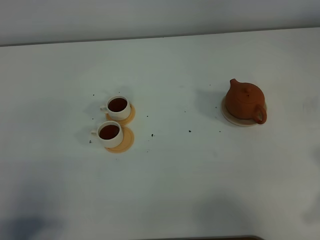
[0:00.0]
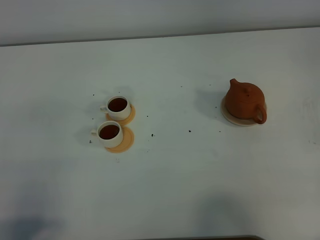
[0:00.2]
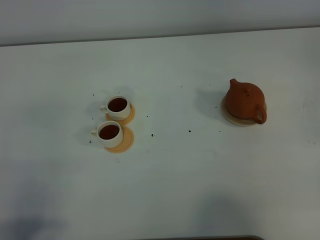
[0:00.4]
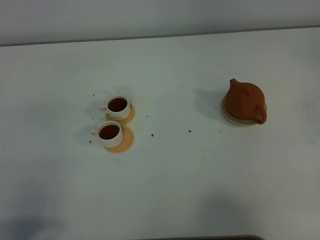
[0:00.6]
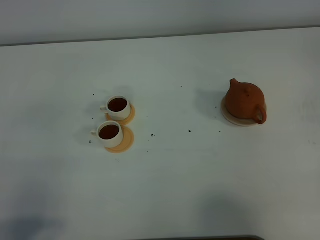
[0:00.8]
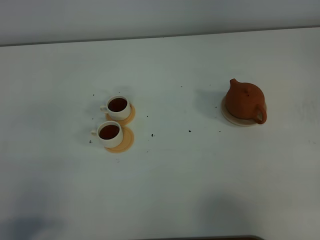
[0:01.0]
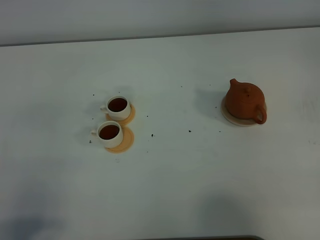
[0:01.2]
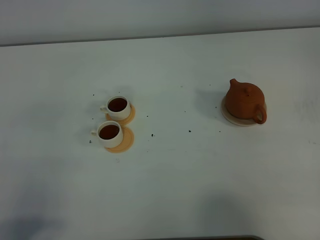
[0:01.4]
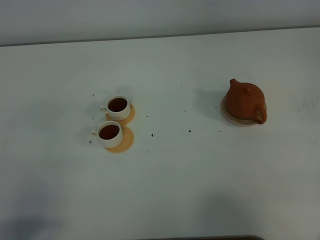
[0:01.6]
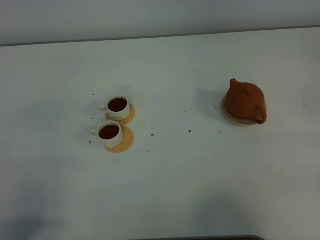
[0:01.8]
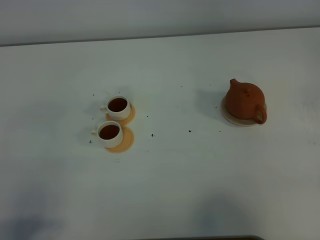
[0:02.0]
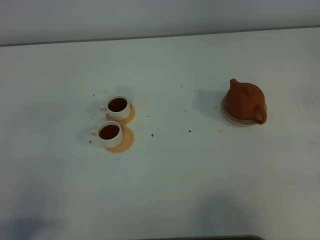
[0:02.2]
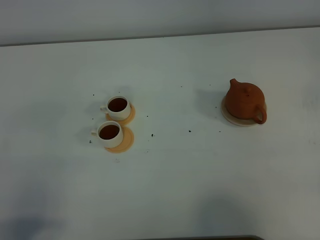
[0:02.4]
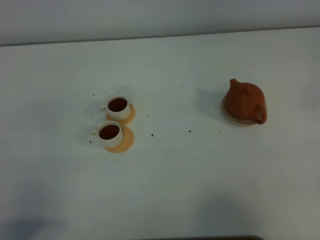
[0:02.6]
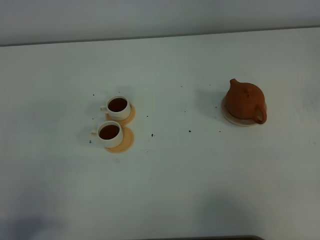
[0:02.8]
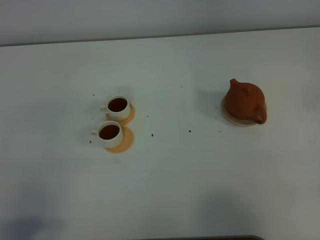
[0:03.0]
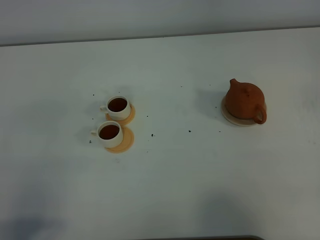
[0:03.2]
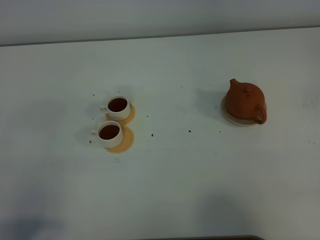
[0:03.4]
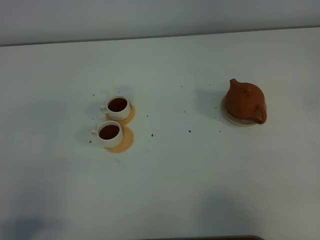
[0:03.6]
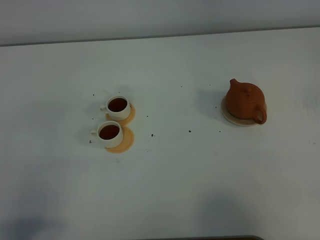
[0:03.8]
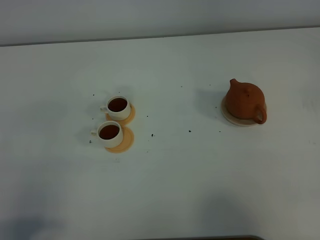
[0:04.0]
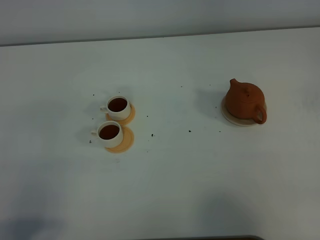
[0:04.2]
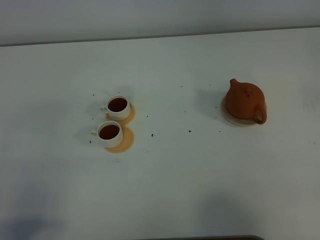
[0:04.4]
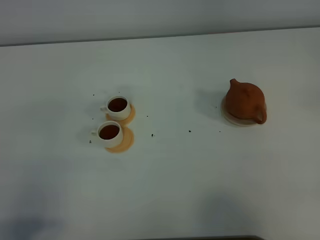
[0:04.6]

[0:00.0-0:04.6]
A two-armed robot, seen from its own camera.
Task of the whole recording: grasp the brown teapot and pour the tea into the two white teacups one by one, put the brown teapot back in its original place.
0:03.0 to 0:04.6: Neither gripper changes place.

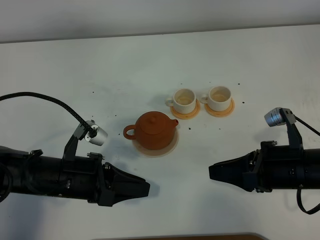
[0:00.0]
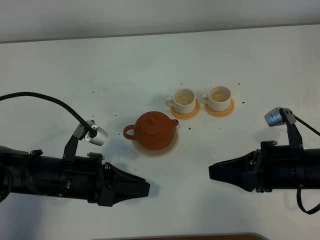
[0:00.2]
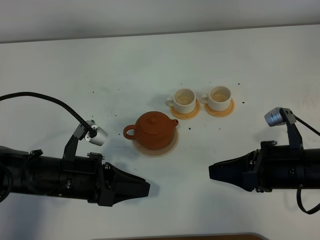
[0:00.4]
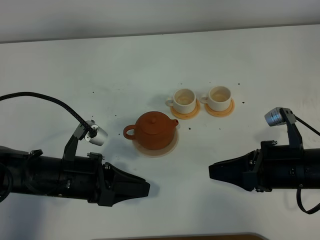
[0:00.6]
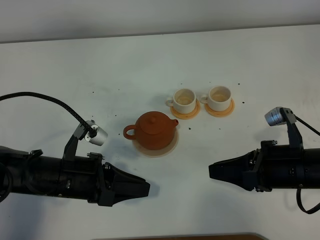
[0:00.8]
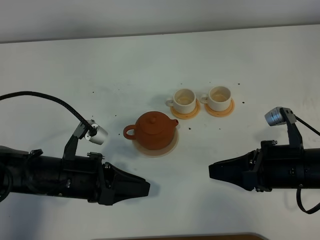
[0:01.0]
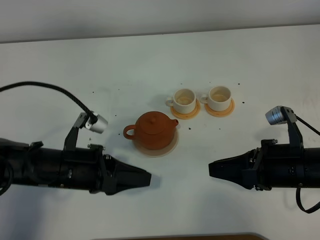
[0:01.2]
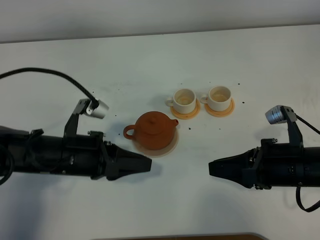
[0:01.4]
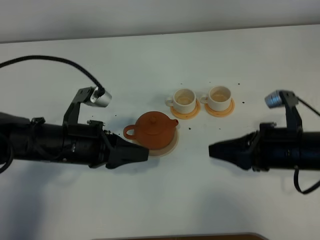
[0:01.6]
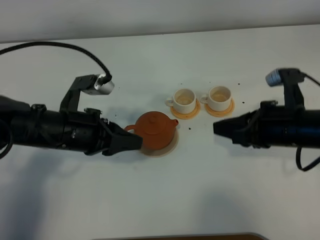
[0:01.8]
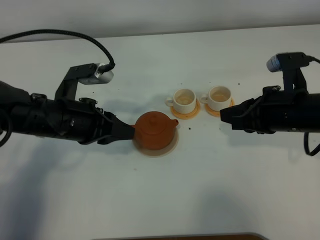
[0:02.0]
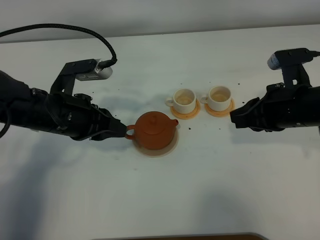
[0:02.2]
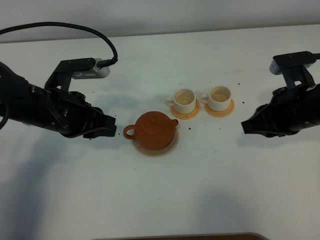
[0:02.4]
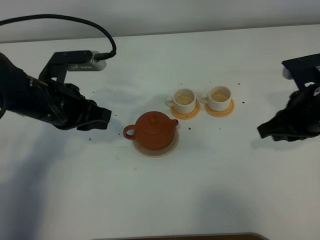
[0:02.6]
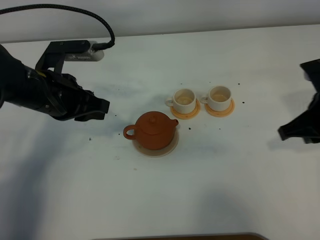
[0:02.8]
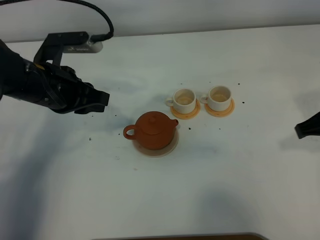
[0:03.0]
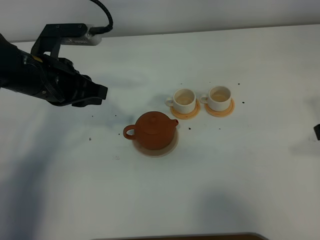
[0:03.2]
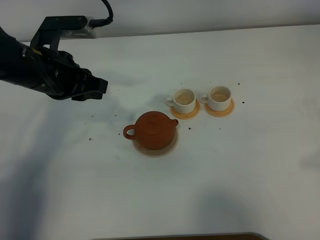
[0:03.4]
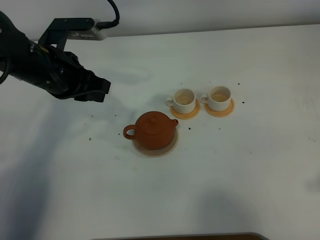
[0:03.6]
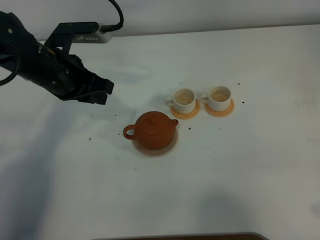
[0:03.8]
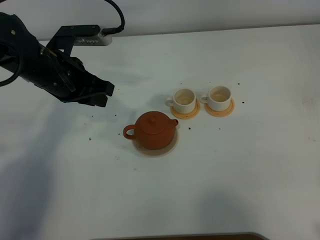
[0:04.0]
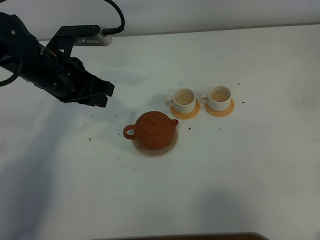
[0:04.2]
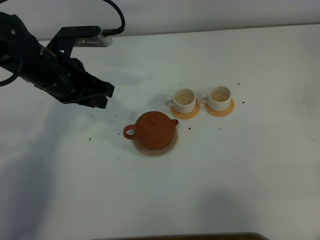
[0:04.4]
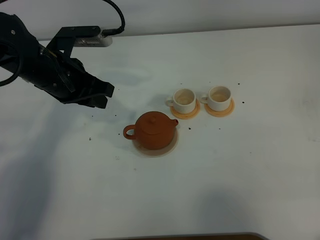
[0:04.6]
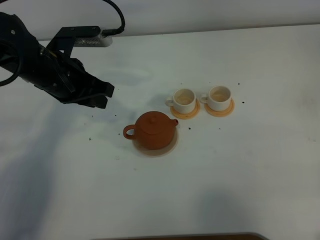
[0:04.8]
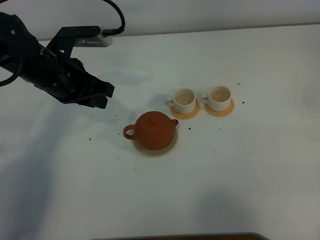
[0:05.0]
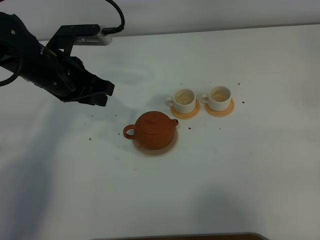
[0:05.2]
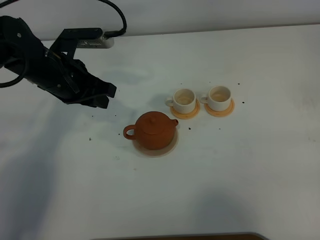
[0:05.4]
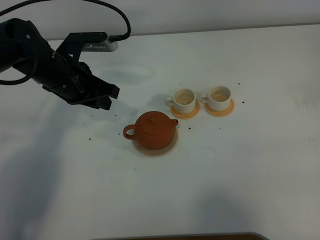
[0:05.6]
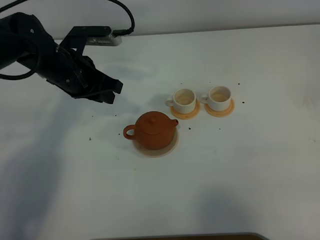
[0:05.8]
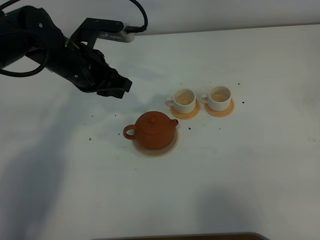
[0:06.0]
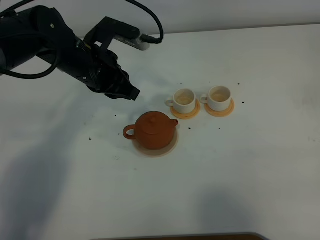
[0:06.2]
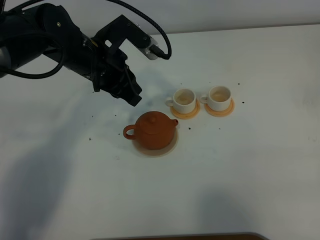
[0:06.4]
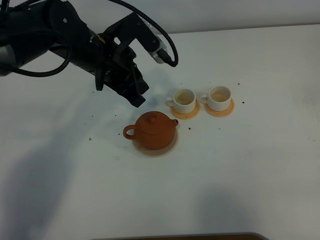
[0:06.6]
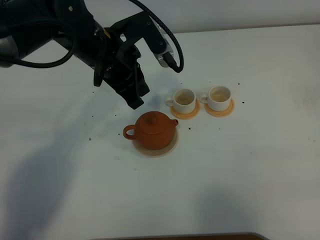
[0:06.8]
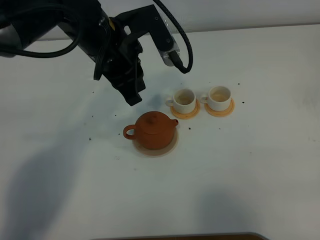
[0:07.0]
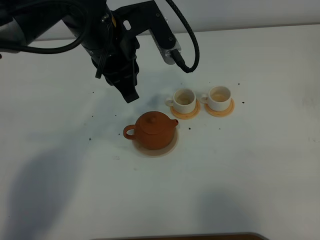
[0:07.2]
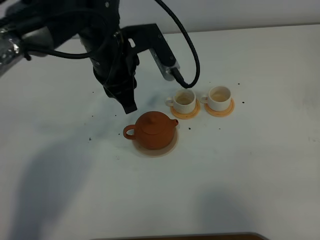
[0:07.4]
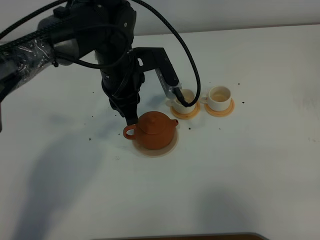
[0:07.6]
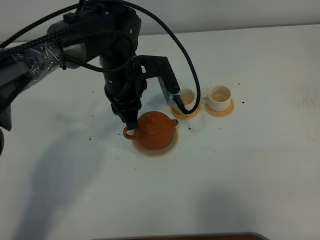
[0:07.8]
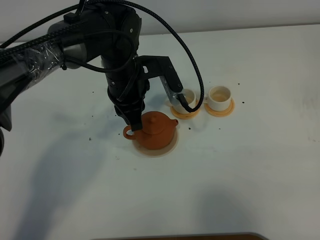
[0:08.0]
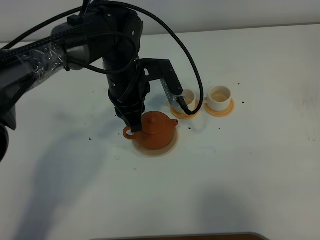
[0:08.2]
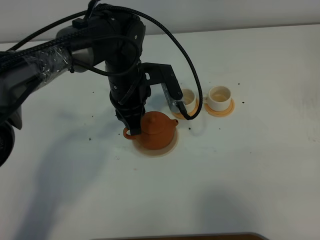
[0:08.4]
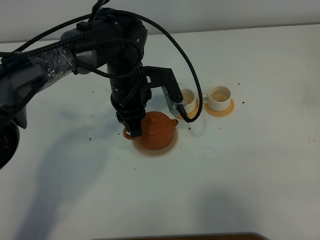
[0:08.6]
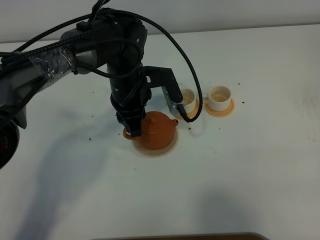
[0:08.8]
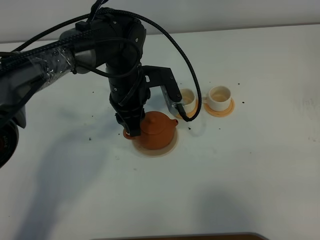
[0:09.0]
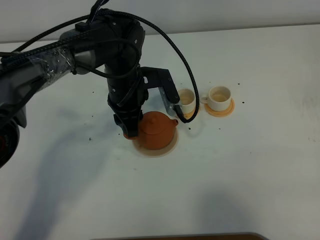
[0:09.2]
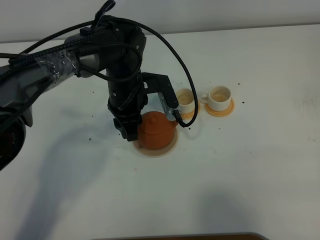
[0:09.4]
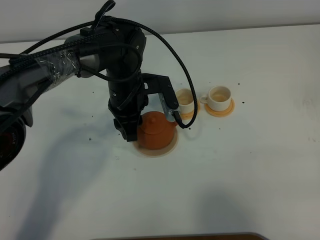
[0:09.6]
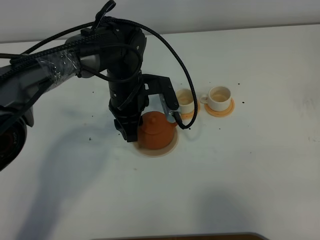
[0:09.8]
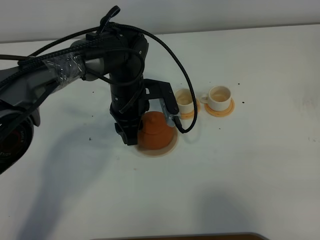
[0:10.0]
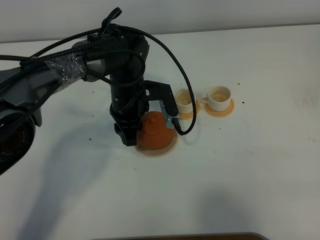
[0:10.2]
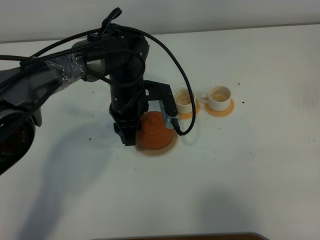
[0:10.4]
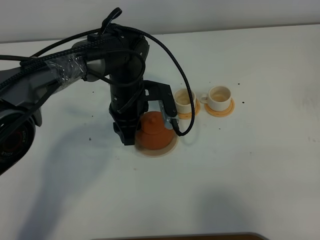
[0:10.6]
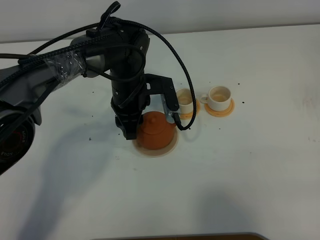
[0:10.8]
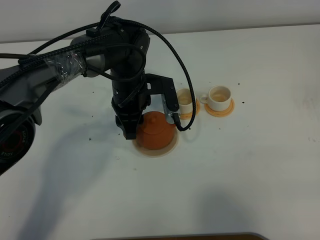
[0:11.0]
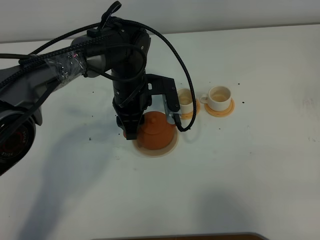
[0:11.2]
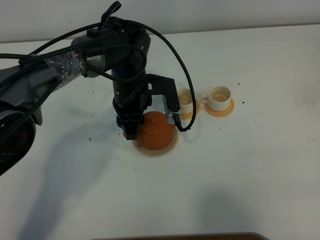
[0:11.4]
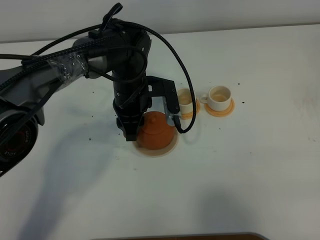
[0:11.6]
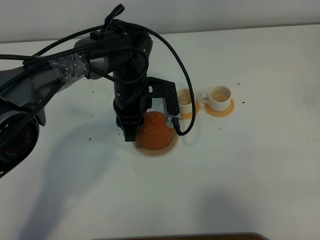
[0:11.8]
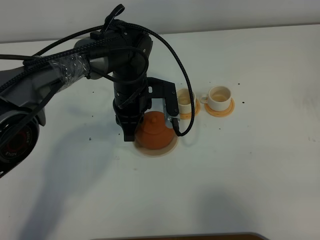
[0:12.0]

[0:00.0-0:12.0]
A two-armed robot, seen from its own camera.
Task of the whole recording: grasp the brown teapot and pour the tea into the two white teacups one by one, put the brown teapot back in its original place.
0:00.0 to 0:01.6: The left gripper changes place by some 5 cm.
0:01.6 to 0:03.0: The left gripper travels forward and upward by roughly 10 cm. The right gripper travels upward and to the right by approximately 10 cm.
0:03.0 to 0:04.4: The right gripper is displaced backward by roughly 20 cm.
0:06.0 to 0:07.6: The left gripper moves to the right, about 10 cm, and moves roughly 5 cm upward and comes back.
0:07.6 to 0:09.0: The left gripper opens up.
0:09.0 to 0:10.4: The grippers stay close to where they were, moving slightly.
0:10.4 to 0:12.0: The left gripper closes its fingers.

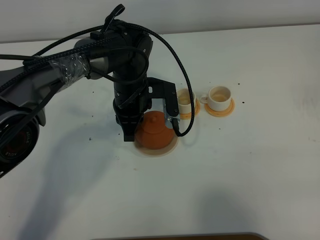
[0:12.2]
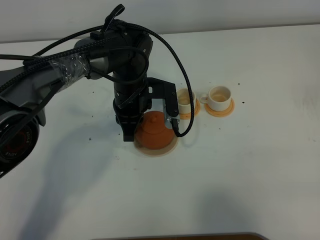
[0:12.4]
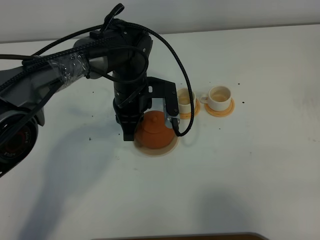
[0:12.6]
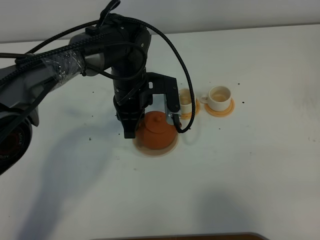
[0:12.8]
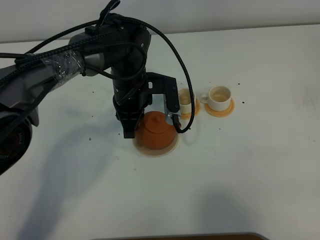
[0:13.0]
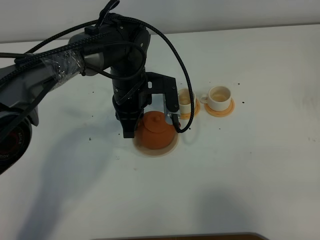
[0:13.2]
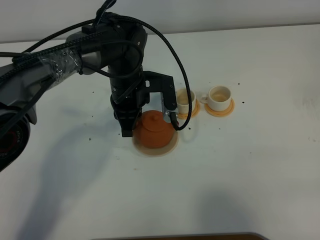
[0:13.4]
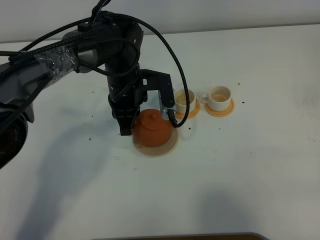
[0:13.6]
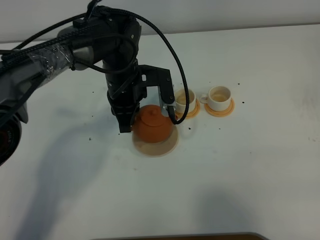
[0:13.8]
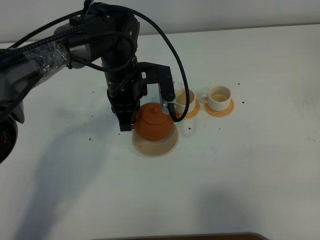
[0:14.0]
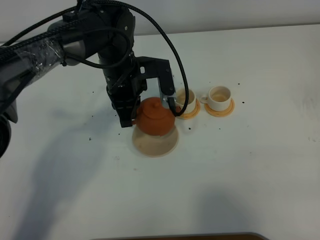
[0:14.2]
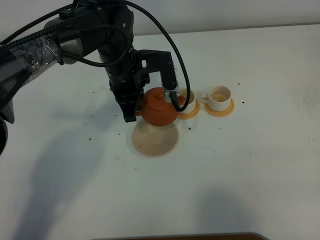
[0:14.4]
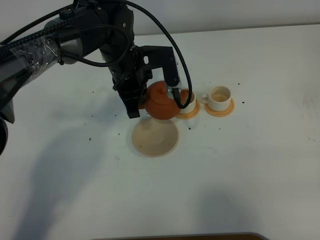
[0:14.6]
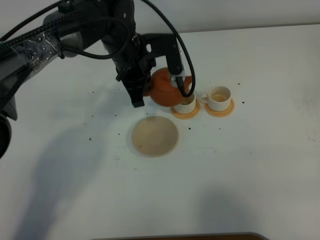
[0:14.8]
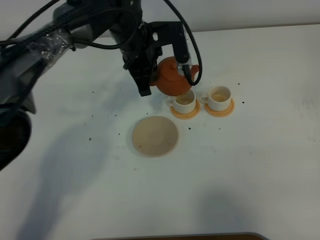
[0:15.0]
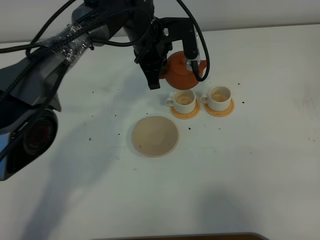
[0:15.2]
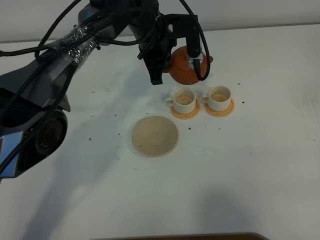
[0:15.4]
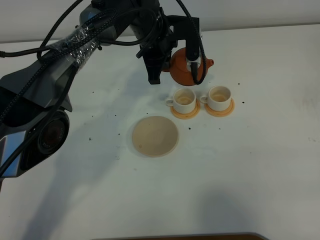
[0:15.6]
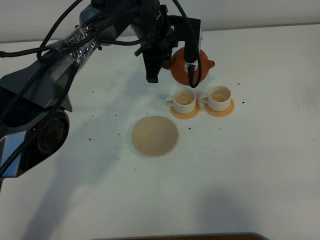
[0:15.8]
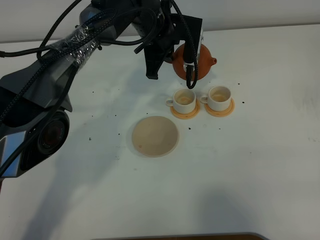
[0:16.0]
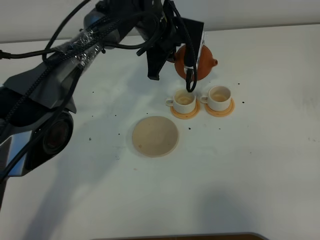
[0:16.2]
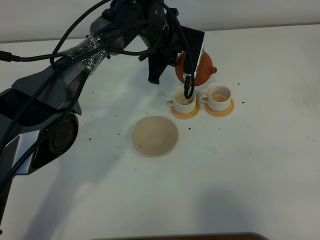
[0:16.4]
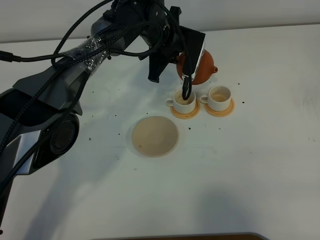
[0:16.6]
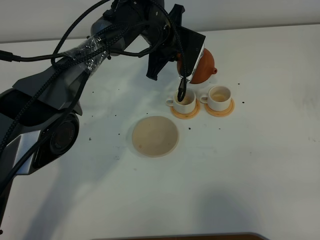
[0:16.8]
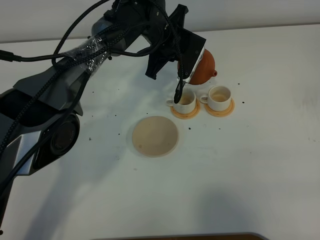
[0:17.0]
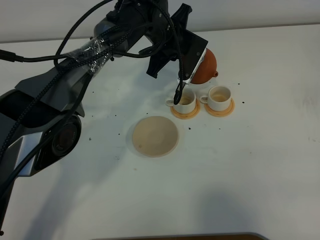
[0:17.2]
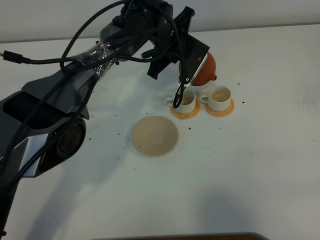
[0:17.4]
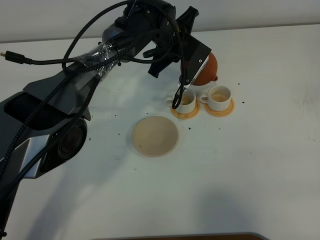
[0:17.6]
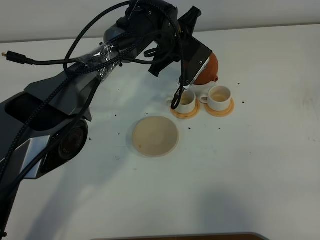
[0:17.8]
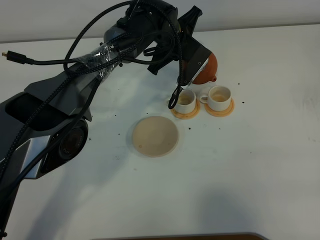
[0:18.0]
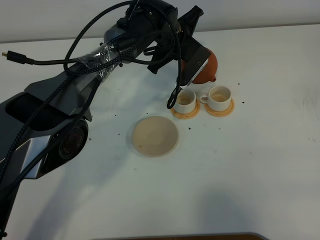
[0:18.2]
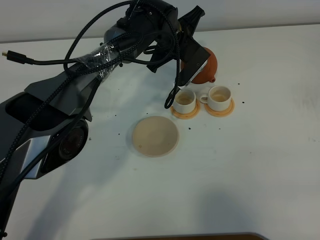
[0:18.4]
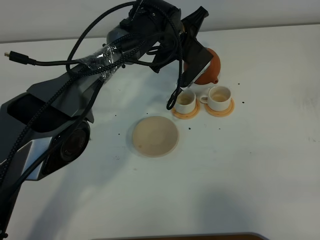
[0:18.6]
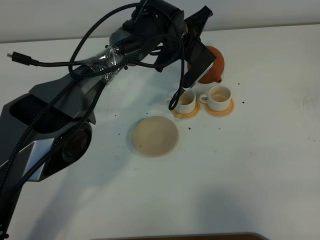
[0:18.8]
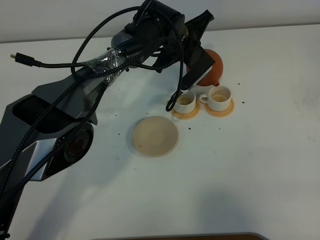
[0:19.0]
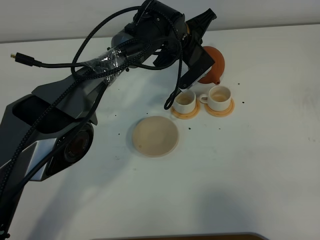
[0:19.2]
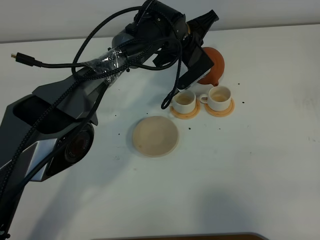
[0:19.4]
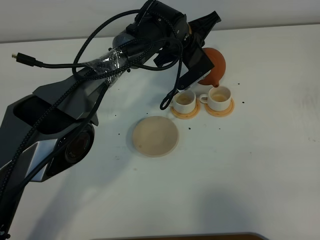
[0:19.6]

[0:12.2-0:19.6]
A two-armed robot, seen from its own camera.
Task of the whole recording: grasp the brown teapot and pour the tea into the two white teacups one by one, put the brown teapot back in its original place.
Step, 0:12.2 to 0:14.2: Pick up the teapot with the left gripper.
0:12.2 to 0:13.6: The grippers move only a little.
0:13.6 to 0:15.2: The left gripper is displaced forward and upward by approximately 10 cm.
0:18.2 to 0:19.6: The grippers move only a little.
